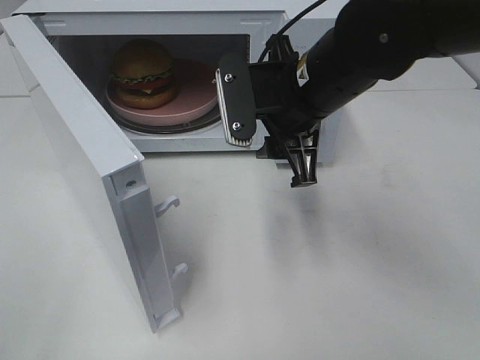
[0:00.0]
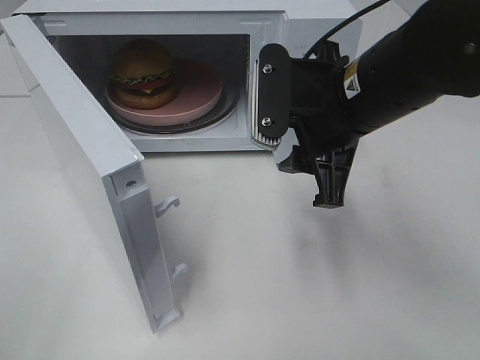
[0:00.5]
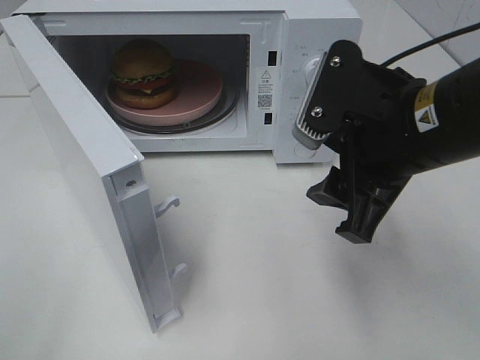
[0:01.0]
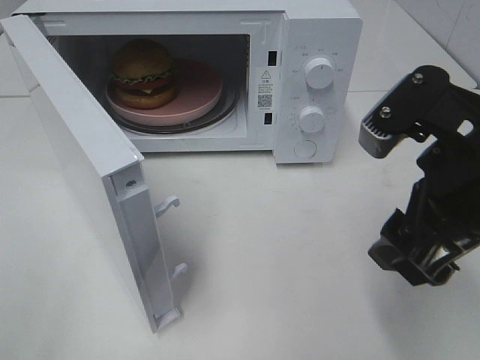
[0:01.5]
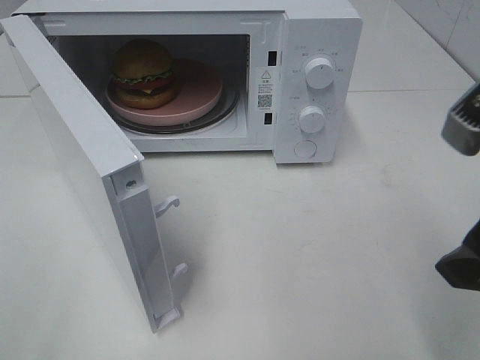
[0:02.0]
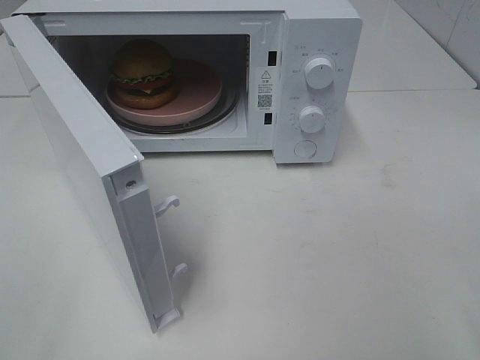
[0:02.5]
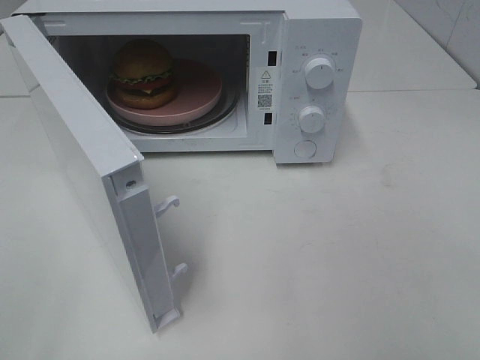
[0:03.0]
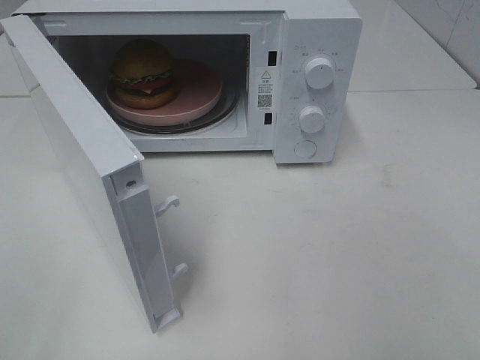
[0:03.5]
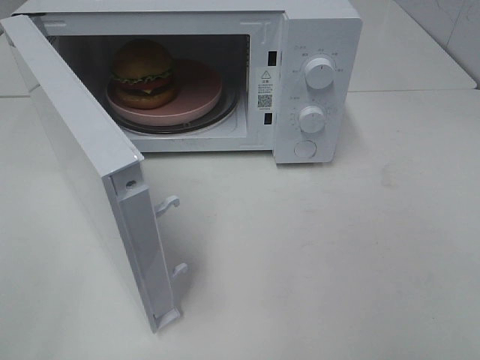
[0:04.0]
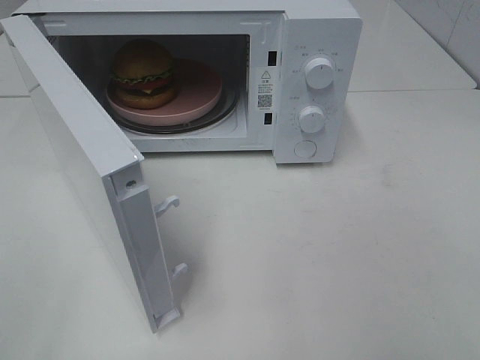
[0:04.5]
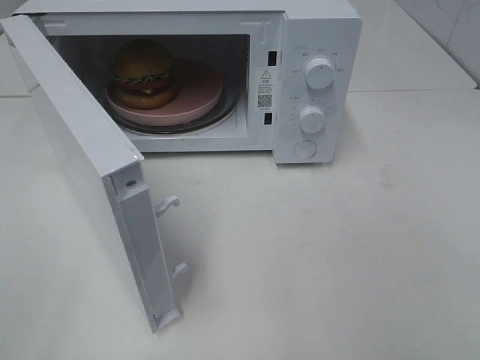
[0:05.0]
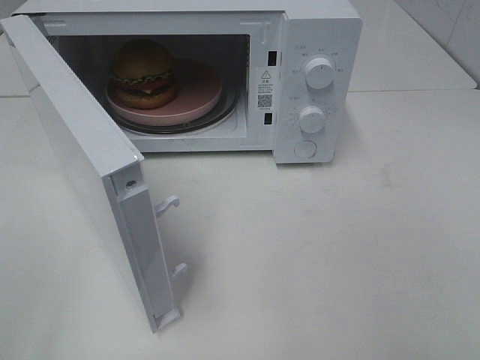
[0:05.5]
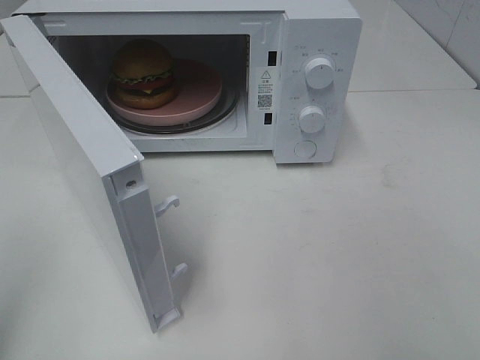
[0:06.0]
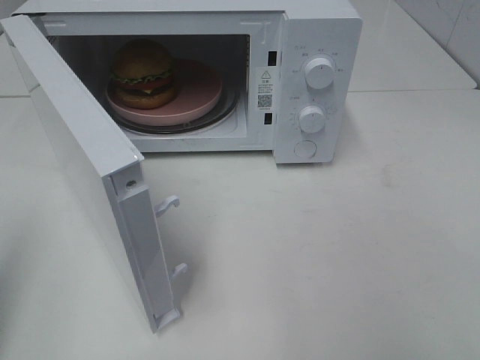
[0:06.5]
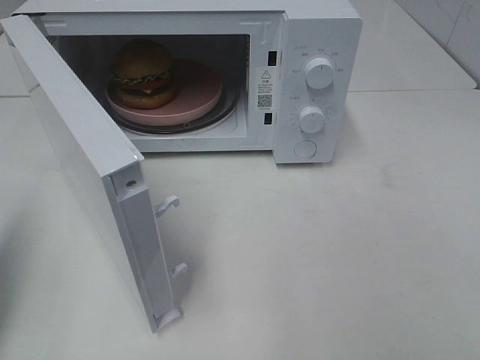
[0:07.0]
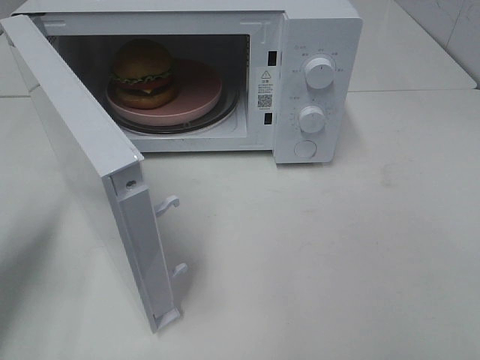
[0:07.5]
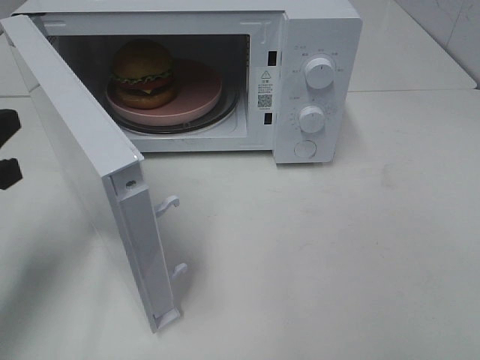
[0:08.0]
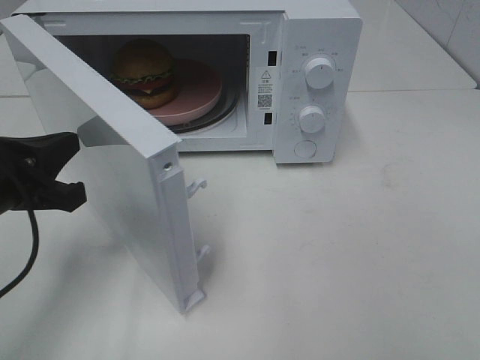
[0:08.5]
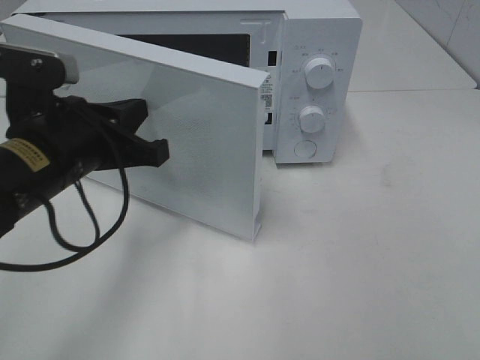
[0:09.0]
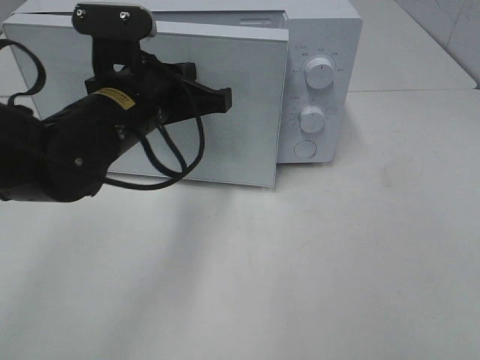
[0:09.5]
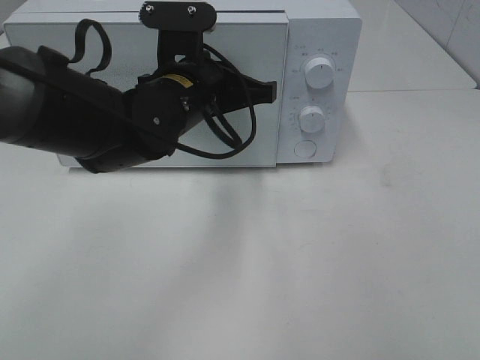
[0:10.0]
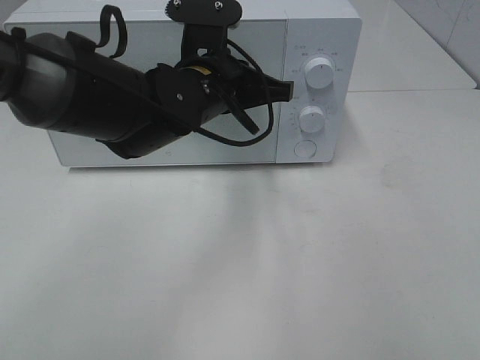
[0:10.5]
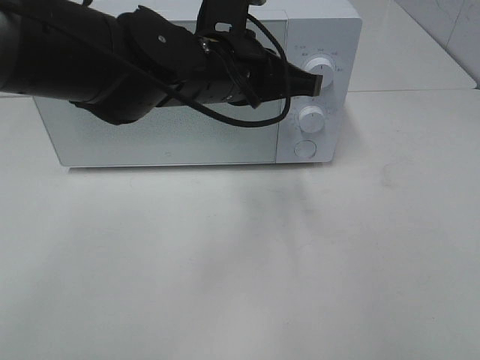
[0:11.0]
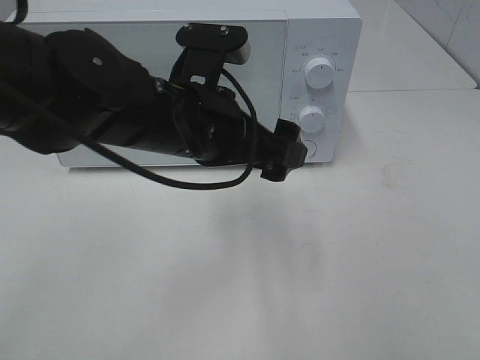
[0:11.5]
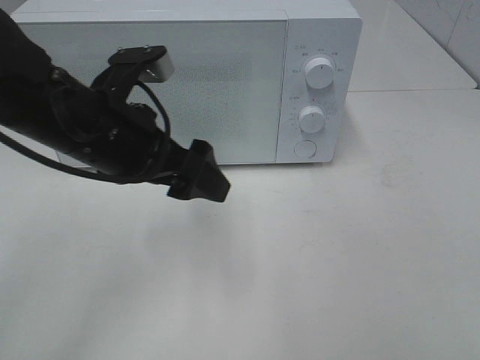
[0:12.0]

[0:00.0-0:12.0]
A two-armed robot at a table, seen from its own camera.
Task of the whole recording: Heat the burger.
Step, 0:00.0 to 0:11.0: Left hand: close the microwave door.
0:00.0 to 0:02.0: The right gripper is displaced backward and to the right by approximately 20 cm.
0:02.0 to 0:04.0: The right gripper travels backward and to the right by about 15 cm.
0:06.0 to 0:08.0: The left gripper heads forward and downward, covering roughly 20 cm.
0:08.0 to 0:10.0: The left gripper shifts approximately 25 cm to the right and forward.
0:10.0 to 0:12.0: The left gripper moves to the left and backward, approximately 10 cm, and opens.

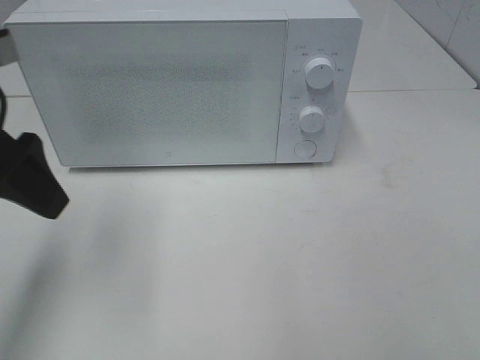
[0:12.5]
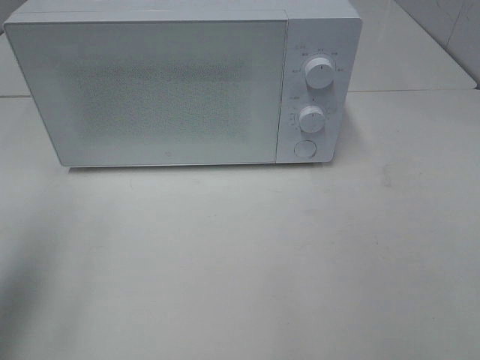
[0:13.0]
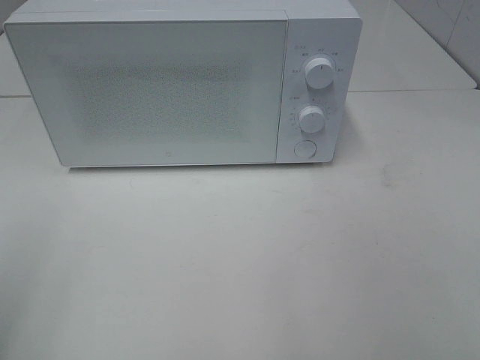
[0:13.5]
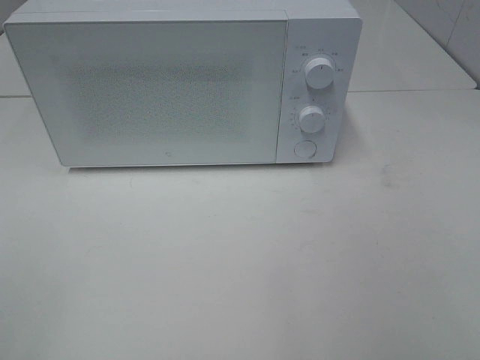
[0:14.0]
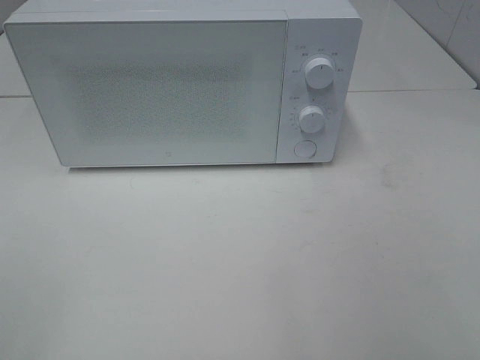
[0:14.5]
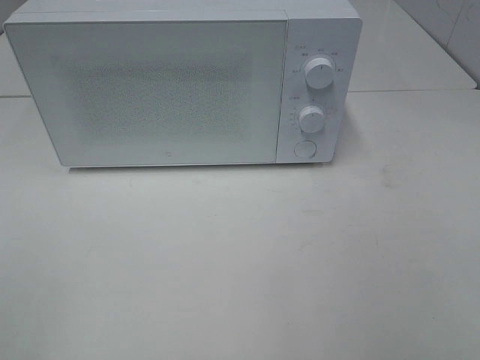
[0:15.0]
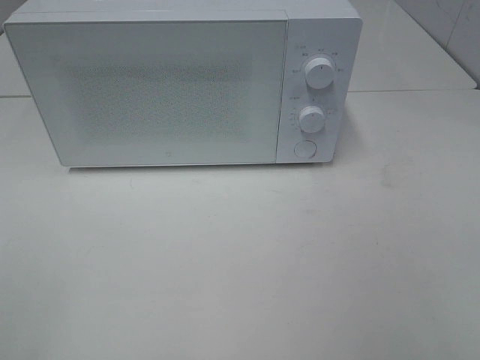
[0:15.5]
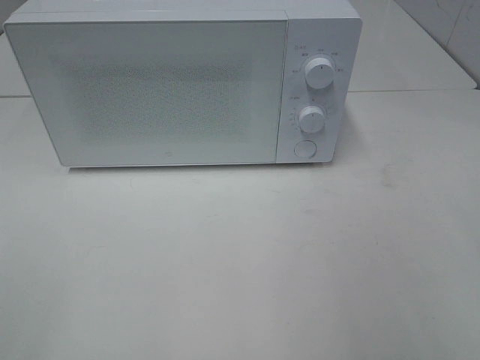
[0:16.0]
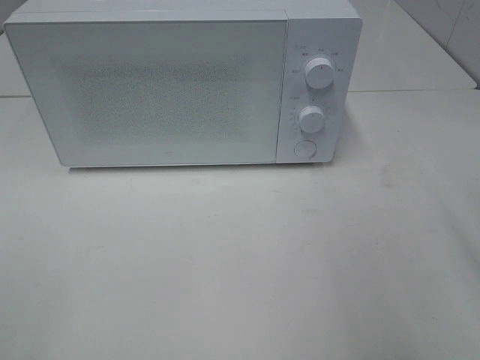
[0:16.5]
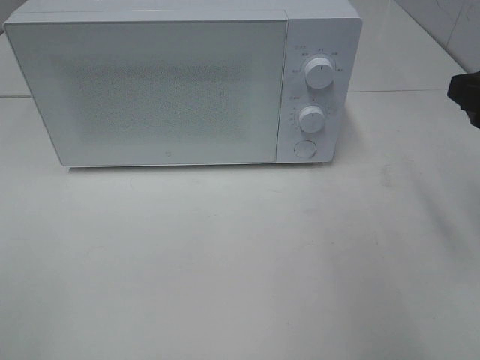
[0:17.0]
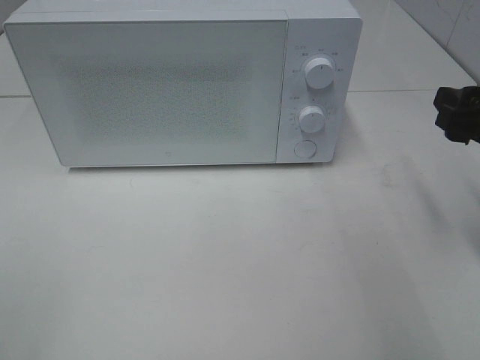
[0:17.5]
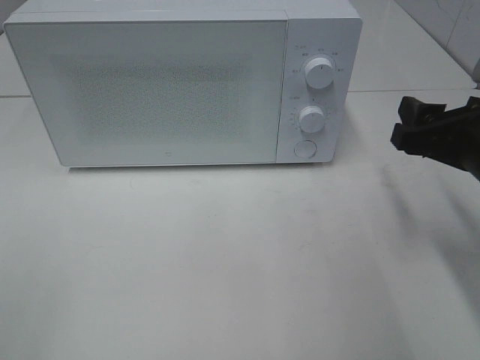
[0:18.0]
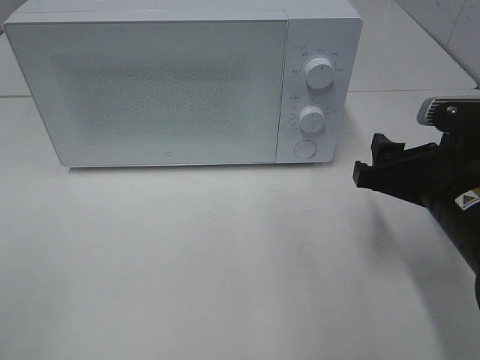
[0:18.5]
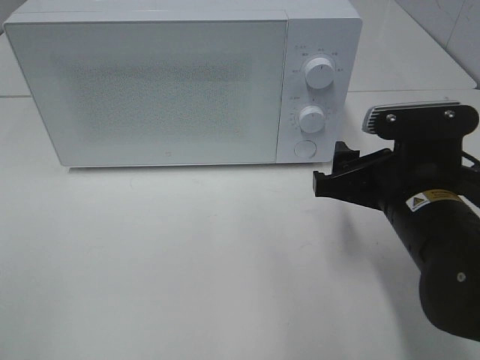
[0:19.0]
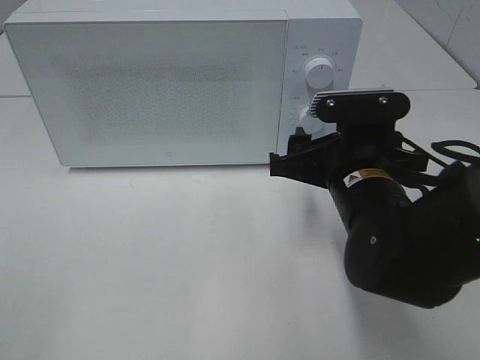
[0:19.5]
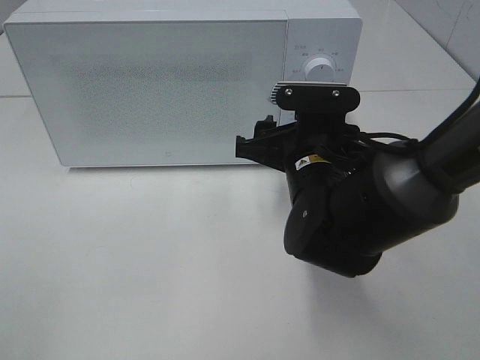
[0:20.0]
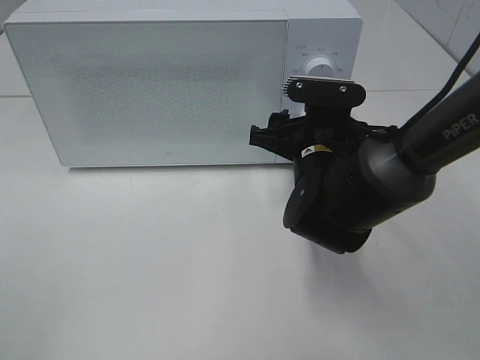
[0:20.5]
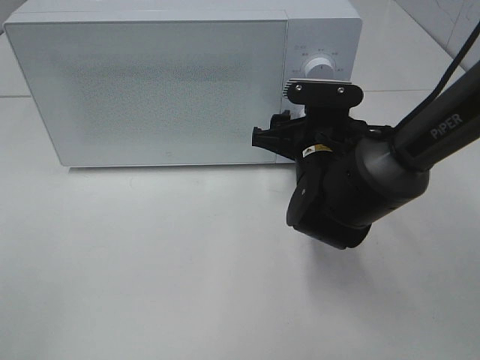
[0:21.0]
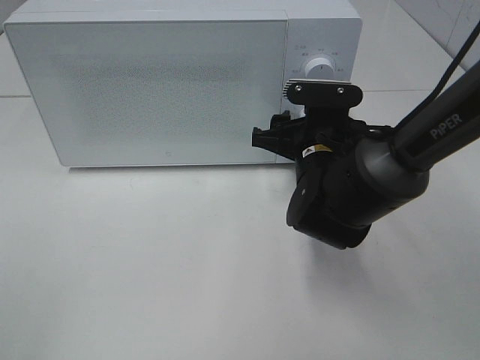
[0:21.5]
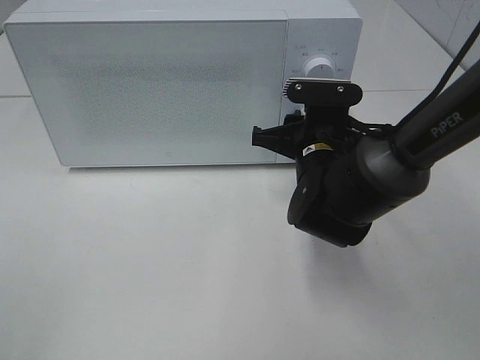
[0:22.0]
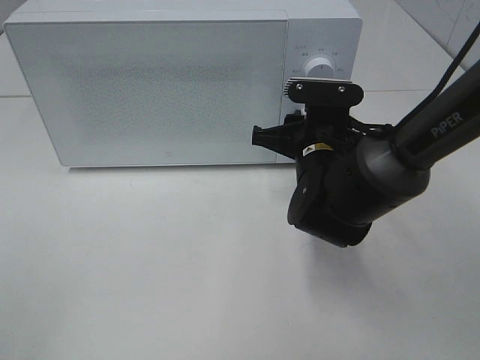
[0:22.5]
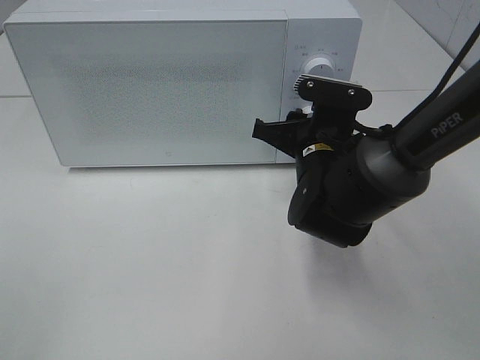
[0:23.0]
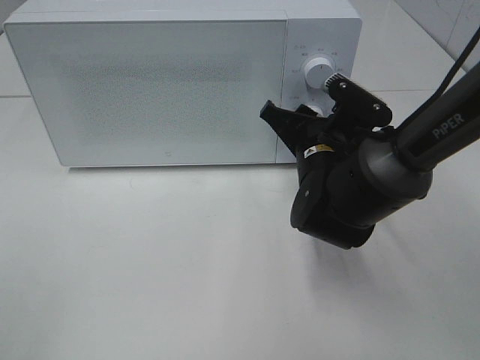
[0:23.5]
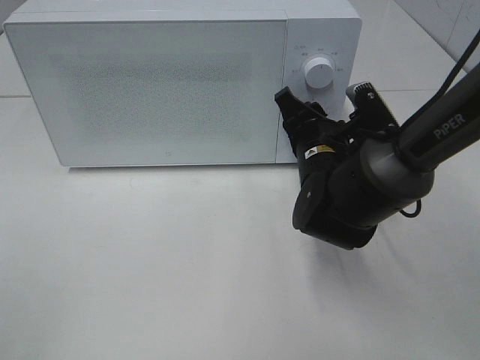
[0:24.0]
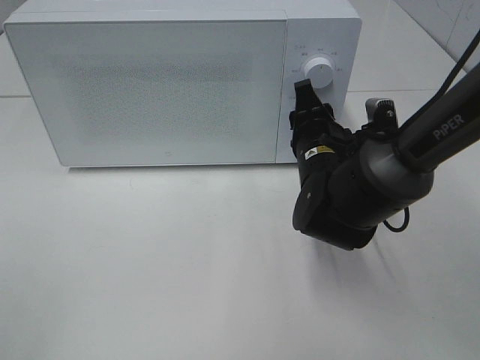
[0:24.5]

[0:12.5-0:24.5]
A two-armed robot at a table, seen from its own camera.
Task of the whole recording: Heat the burger.
0:12.5 to 0:14.5: The left gripper shifts roughly 25 cm backward.
0:16.5 to 0:18.5: The right gripper travels downward, to the left and forward by about 15 cm.
0:18.5 to 0:20.5: The right gripper travels forward and to the left by roughly 15 cm.
0:20.5 to 0:22.5: The right gripper closes its fingers.

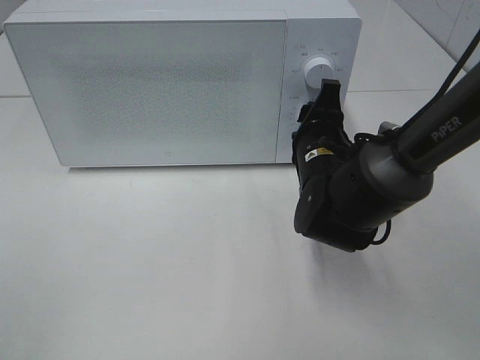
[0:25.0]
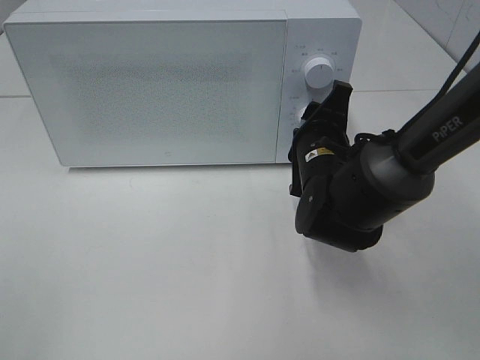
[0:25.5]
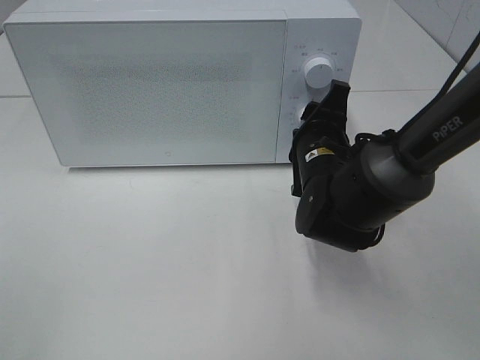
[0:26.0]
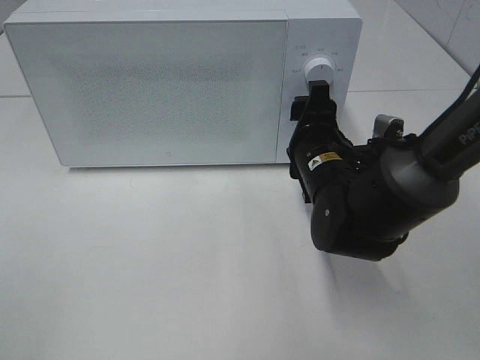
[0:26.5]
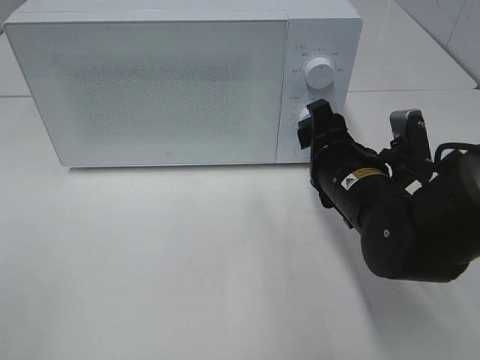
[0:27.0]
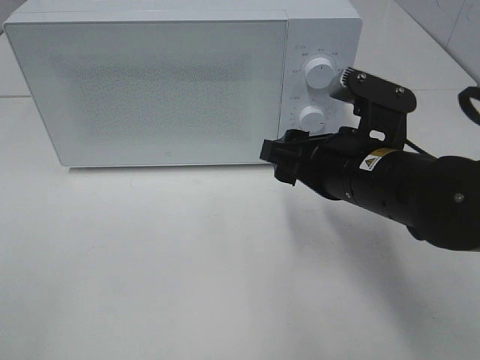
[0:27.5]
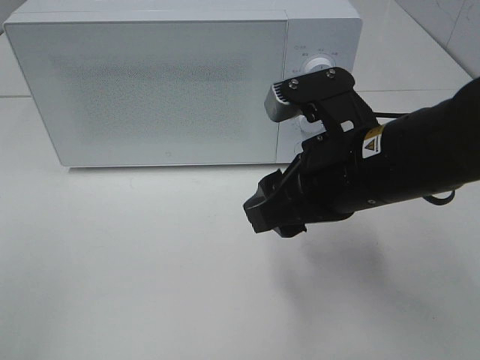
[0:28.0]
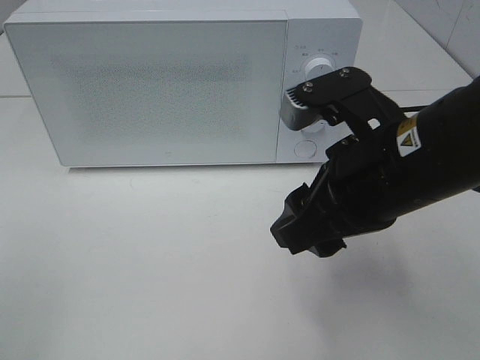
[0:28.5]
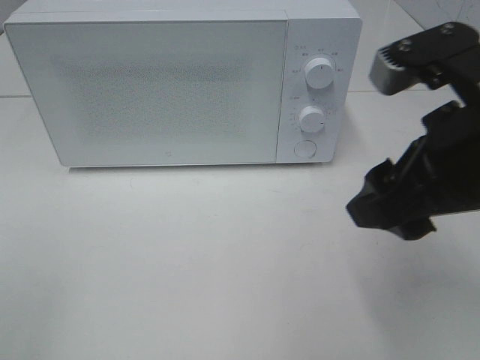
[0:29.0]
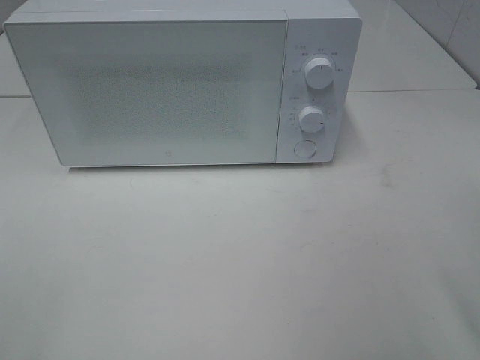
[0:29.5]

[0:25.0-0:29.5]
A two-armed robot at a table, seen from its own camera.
Task of the whole recording: Heat the burger.
0:25.0 to 0:27.0: The right gripper is displaced backward by about 5 cm.
0:27.0 to 0:29.5: The right gripper goes approximately 25 cm upward, backward and to the right.
